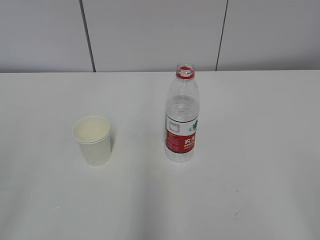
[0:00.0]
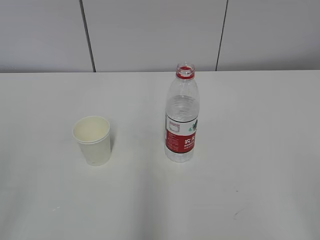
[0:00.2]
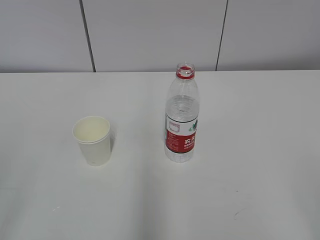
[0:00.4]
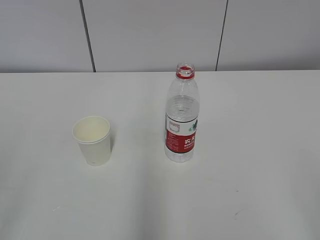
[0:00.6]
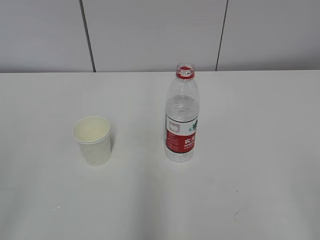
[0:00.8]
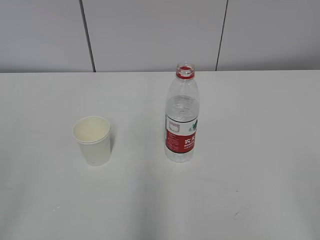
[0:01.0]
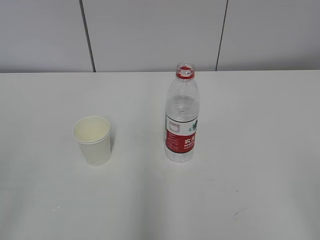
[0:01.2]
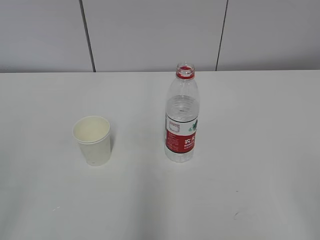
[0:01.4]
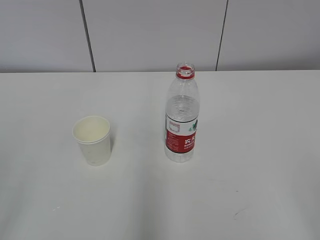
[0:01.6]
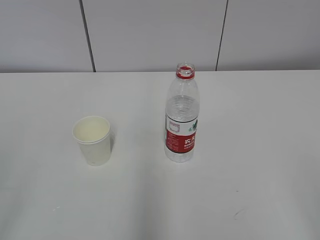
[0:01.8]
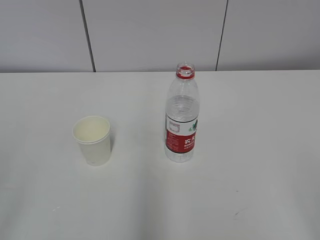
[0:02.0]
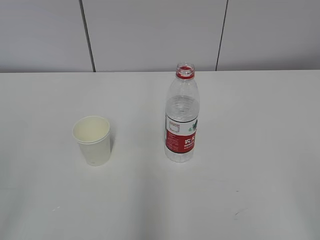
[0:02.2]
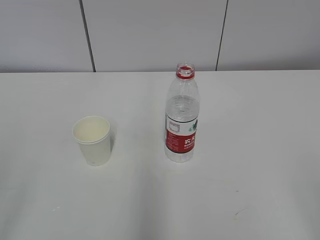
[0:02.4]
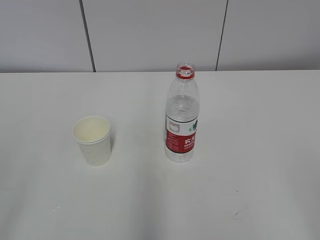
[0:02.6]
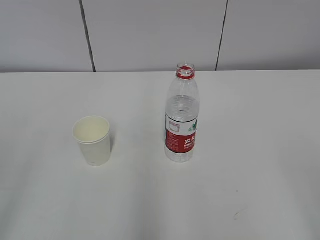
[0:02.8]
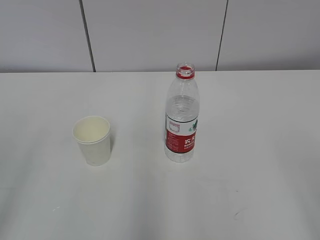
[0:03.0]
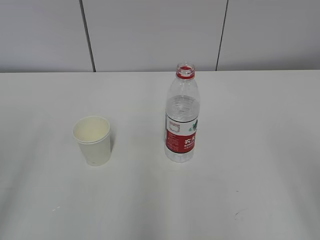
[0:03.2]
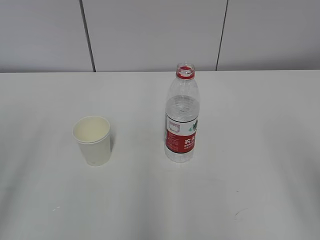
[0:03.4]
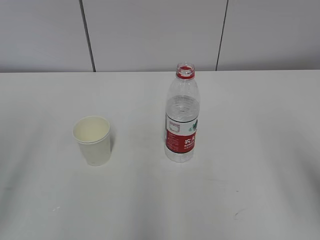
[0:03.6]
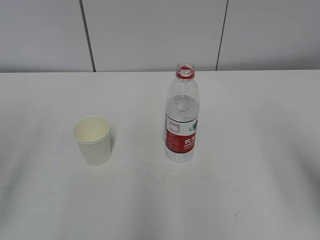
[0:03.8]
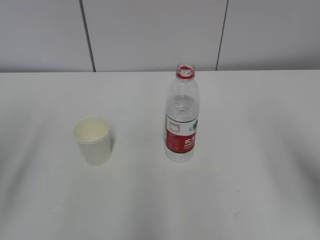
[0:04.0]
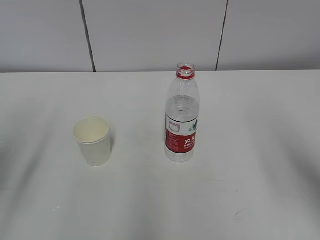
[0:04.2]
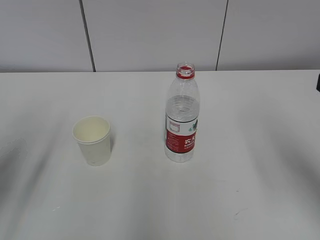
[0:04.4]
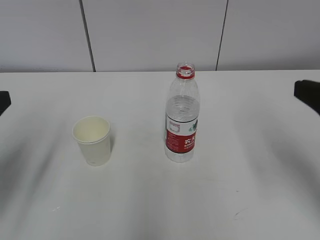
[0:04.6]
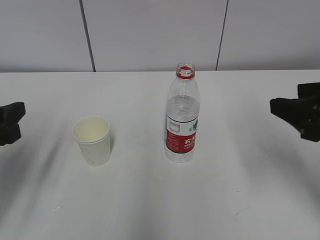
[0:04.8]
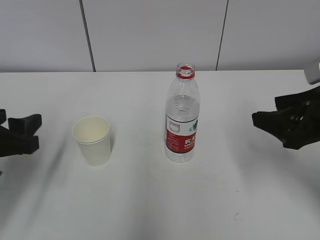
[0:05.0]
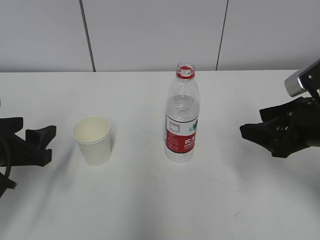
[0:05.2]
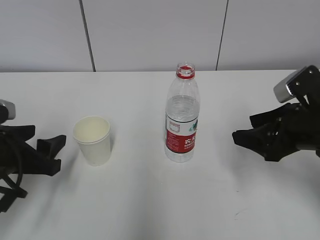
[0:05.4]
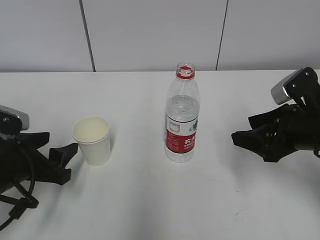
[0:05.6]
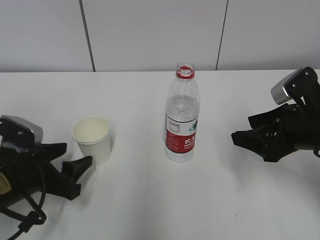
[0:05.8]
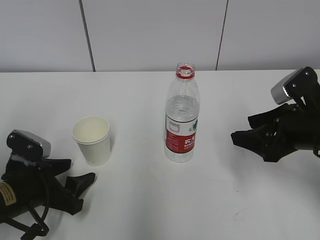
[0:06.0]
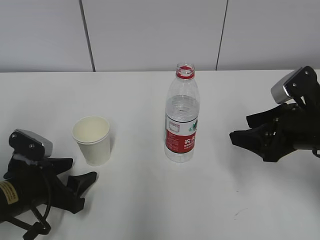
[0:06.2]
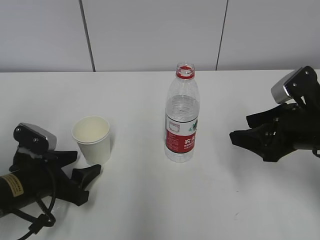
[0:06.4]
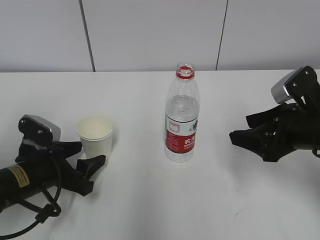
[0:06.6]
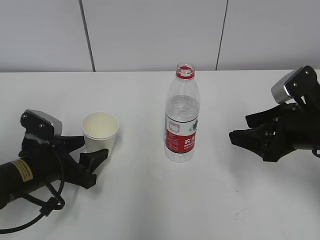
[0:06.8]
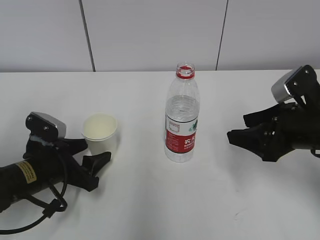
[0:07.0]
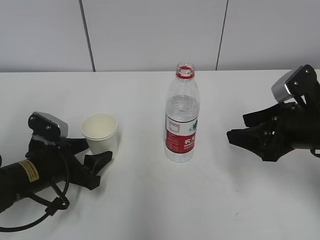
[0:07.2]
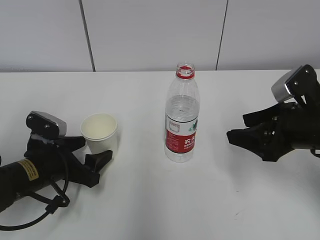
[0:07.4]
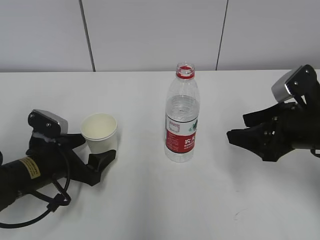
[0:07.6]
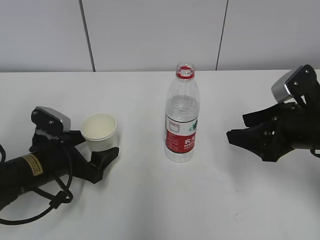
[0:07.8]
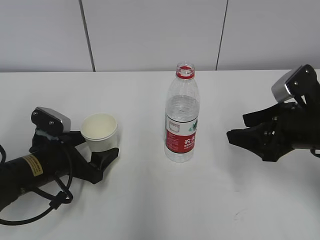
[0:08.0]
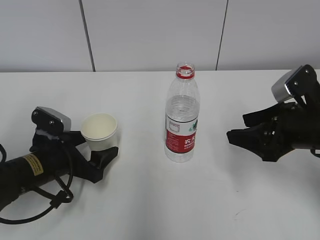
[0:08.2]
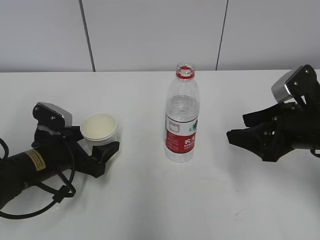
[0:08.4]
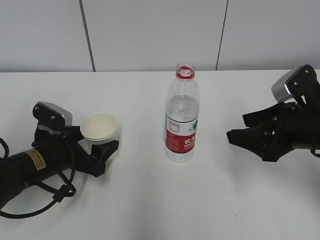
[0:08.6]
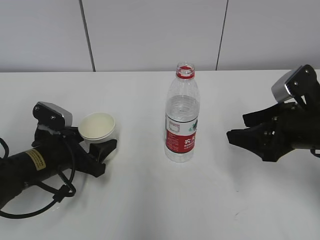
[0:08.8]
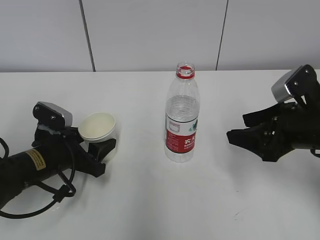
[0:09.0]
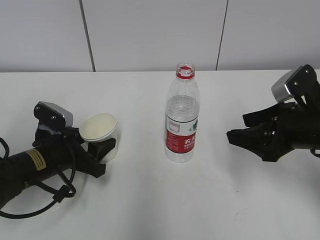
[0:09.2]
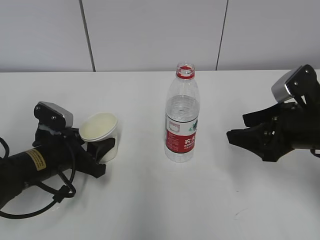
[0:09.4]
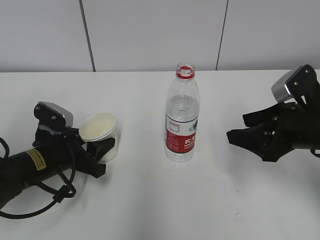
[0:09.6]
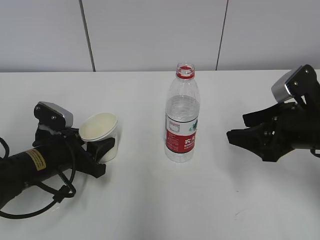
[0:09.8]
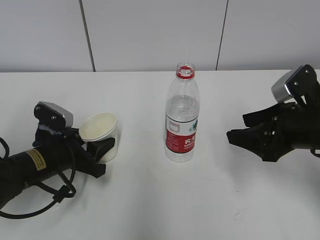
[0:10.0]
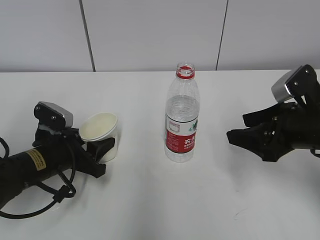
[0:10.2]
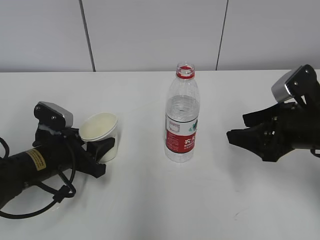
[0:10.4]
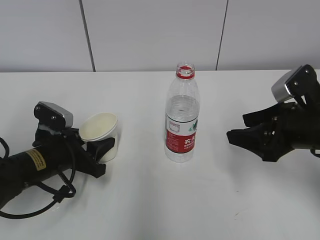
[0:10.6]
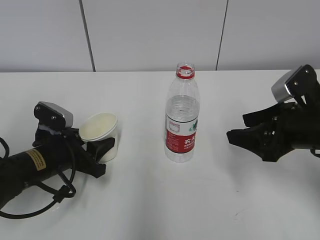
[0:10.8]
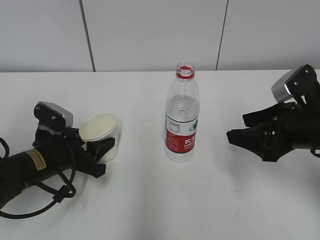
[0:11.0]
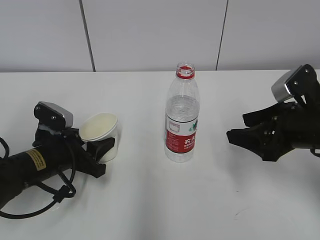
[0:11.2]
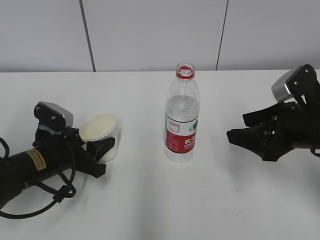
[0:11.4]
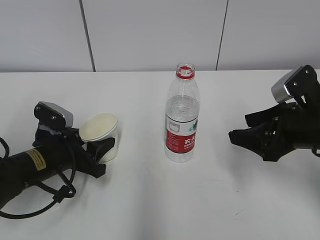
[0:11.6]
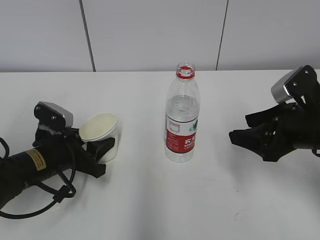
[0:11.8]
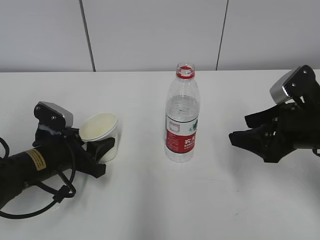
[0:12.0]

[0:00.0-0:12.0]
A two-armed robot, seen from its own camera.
0:03.0 to 0:04.4: Both grippers move forward, roughly 15 cm.
0:04.4 to 0:06.0: The left gripper shifts roughly 20 cm downward, while the right gripper is displaced downward and forward by about 15 cm.
0:06.0 to 0:07.6: The left gripper ends up some 5 cm from where it was, and opens.
0:07.6 to 0:09.0: The left gripper closes its fingers.
0:09.0 to 0:12.0: Both grippers stay about where they are.

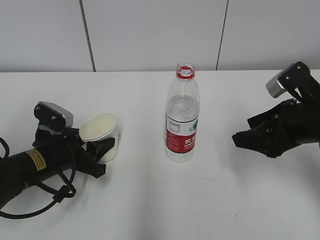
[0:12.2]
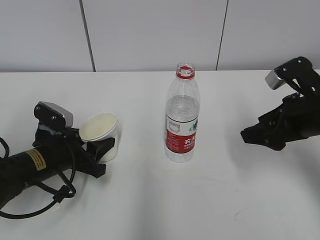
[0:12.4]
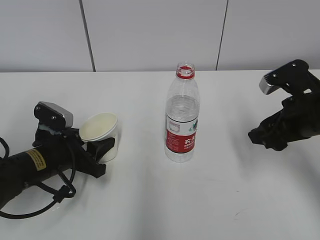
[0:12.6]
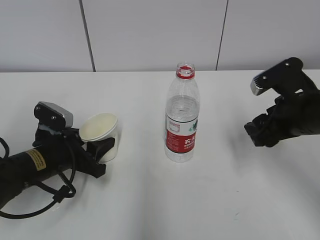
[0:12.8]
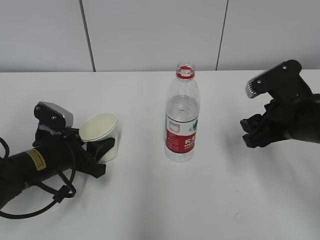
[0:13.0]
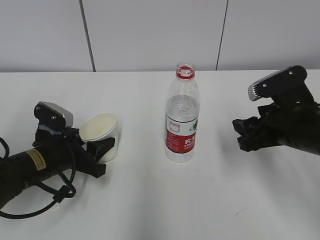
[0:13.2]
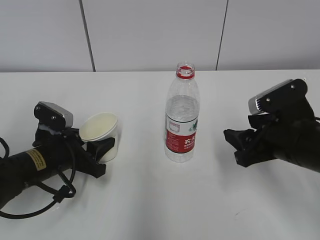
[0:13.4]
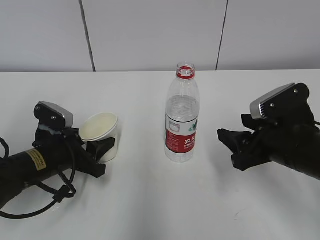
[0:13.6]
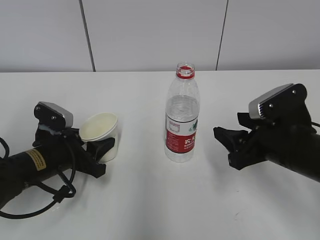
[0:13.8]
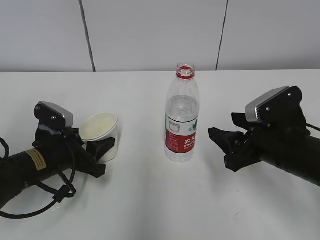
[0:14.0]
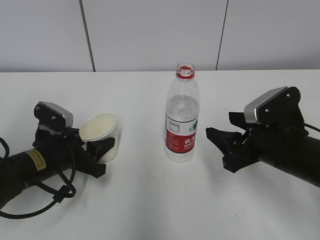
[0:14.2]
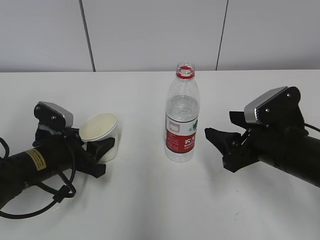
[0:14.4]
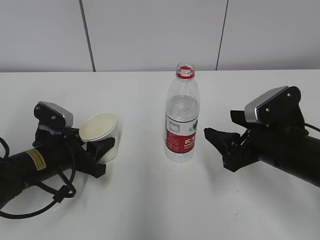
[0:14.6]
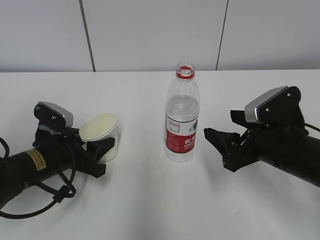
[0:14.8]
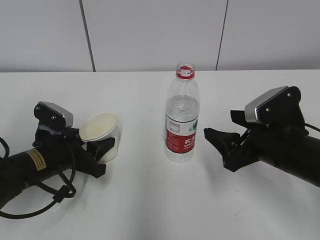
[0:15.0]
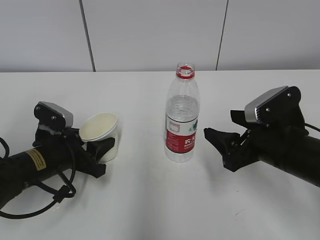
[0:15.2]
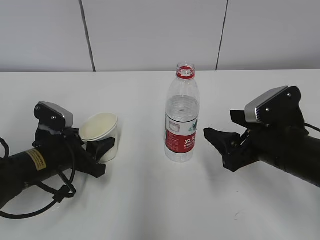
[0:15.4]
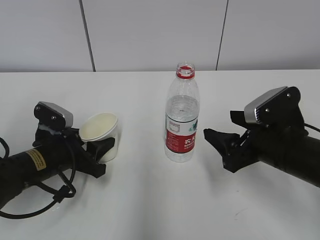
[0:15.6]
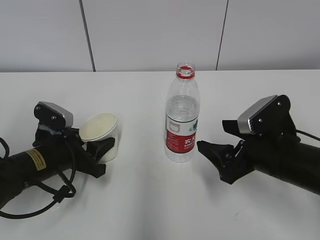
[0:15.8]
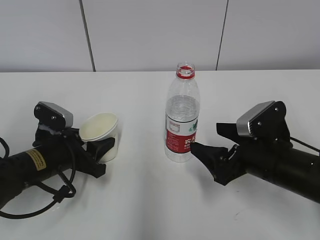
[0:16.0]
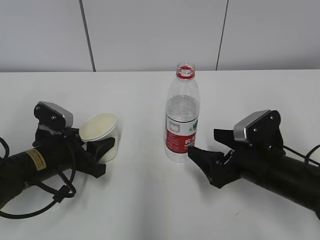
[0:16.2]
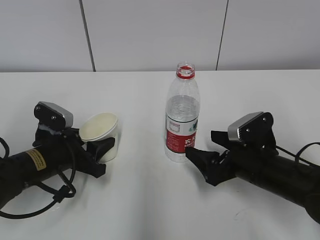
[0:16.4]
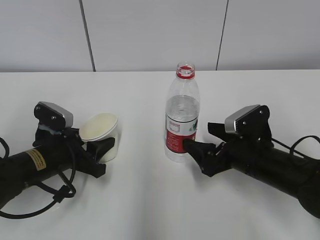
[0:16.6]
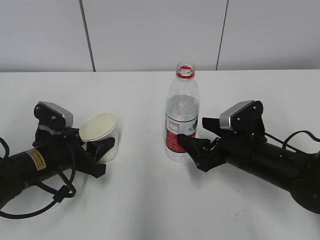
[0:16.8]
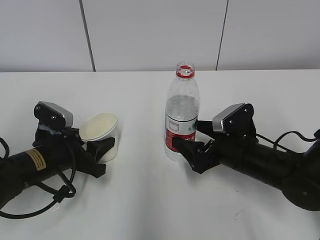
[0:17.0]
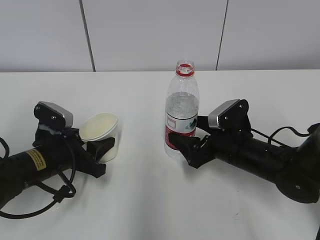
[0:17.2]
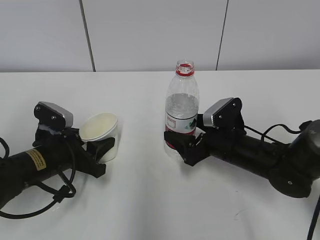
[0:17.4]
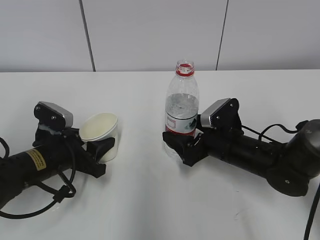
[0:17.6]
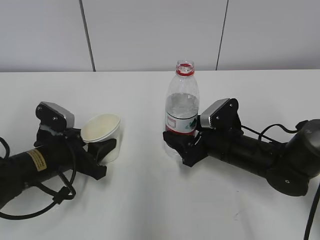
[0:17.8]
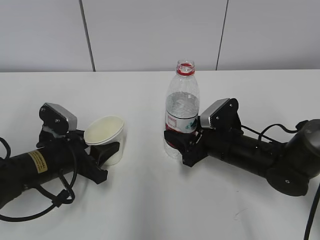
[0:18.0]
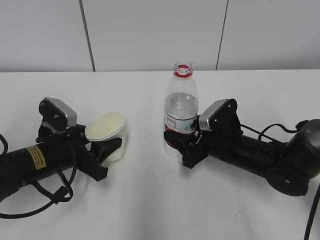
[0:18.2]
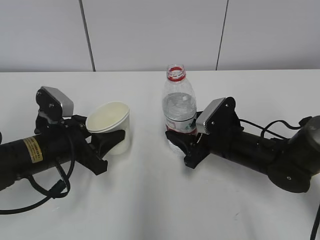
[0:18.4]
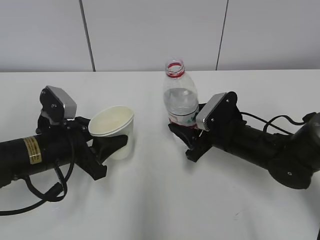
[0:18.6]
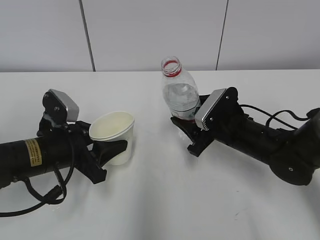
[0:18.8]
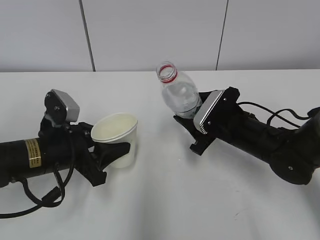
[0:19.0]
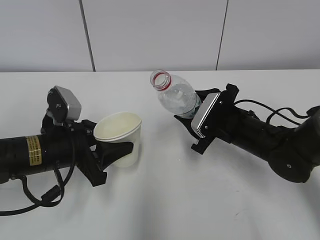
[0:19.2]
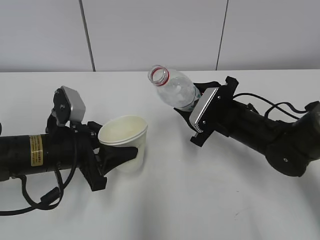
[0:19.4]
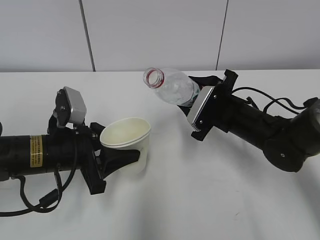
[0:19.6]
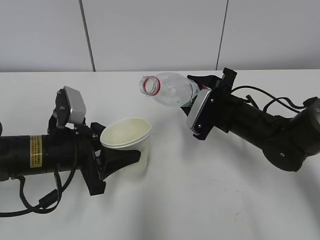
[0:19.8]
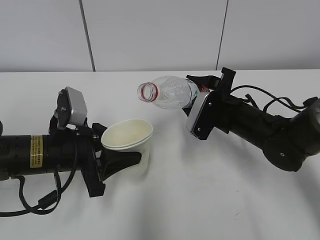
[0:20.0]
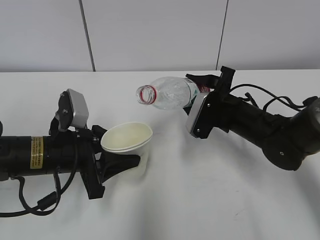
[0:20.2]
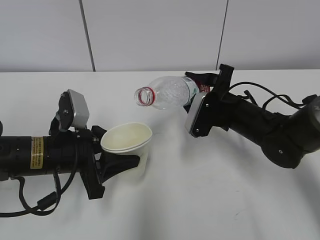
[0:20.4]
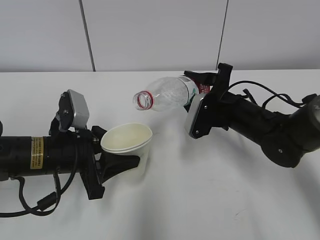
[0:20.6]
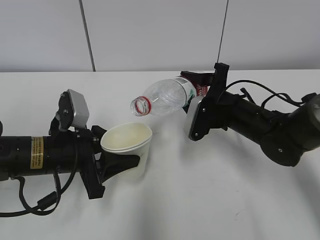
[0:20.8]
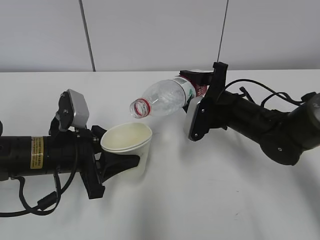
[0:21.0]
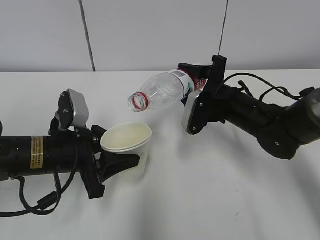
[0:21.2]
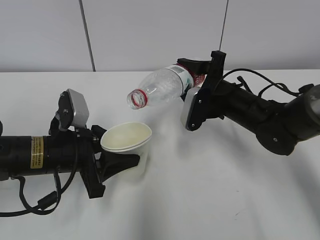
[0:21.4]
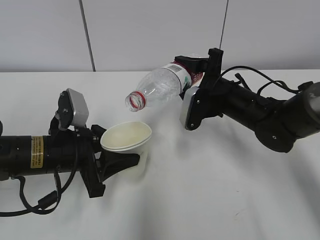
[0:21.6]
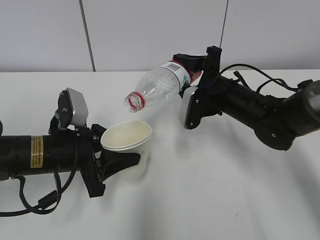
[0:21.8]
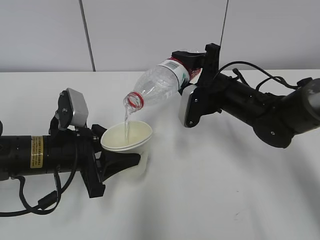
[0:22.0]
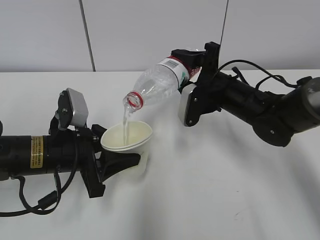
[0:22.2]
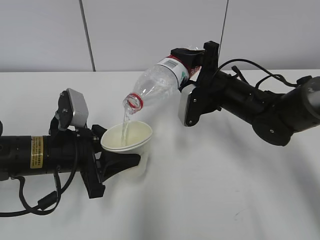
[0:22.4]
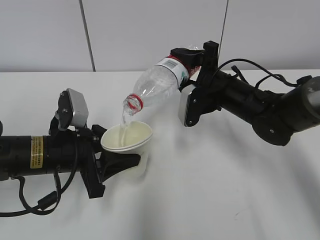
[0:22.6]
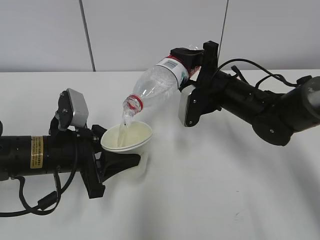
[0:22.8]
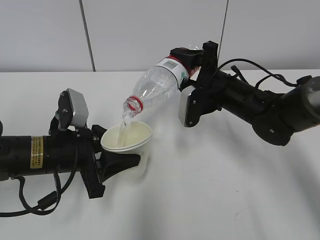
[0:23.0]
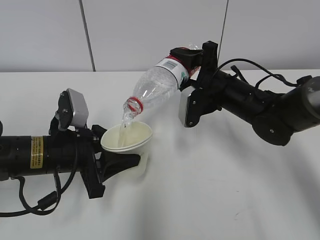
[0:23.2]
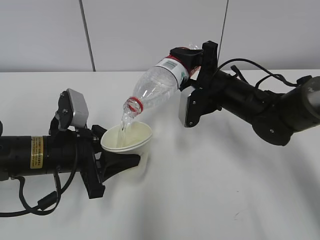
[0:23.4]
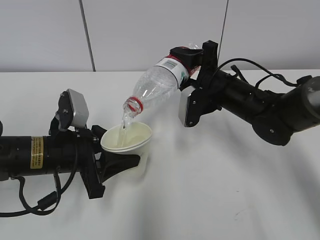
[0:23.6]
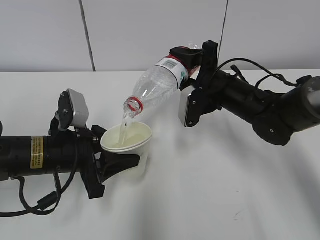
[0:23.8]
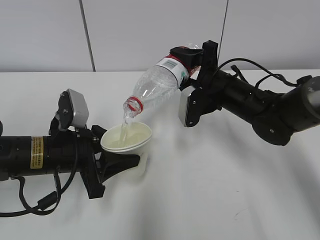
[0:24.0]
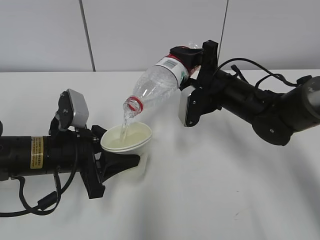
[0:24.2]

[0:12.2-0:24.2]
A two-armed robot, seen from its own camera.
Step, 0:18.2 to 0:20.6: Fill water with the left hand.
Step, 0:18.2 to 0:20.6: Pour water with the right hand.
Step, 0:20.8 to 0:21.2: Collect water with the right hand.
0:12.2 to 0:13.8: The right gripper moves some 5 cm.
0:13.8 to 0:15.2: The right gripper opens.
0:15.2 to 0:16.6: The right gripper shifts about 5 cm downward, and opens its fingers.
0:16.6 to 0:18.2: The right gripper shifts by about 5 cm, and closes.
0:18.2 to 0:19.8: The right gripper ends up approximately 5 cm from where it was.
0:21.2 to 0:22.6: The grippers stay close to where they were, moving slightly.
0:22.6 to 0:24.2: Both grippers stay about where they are.
